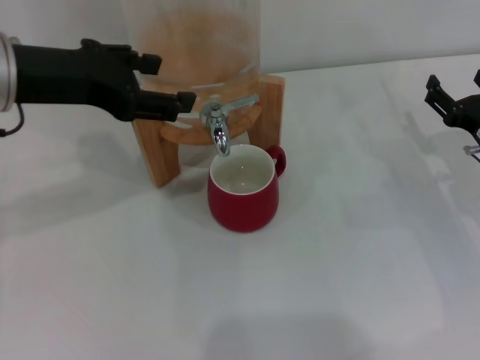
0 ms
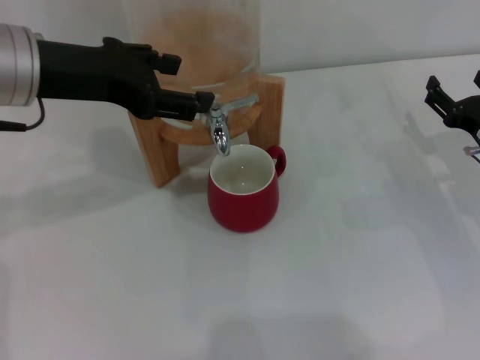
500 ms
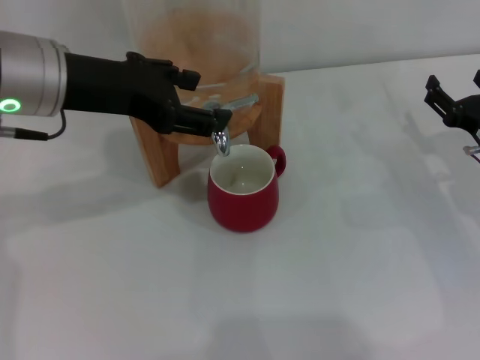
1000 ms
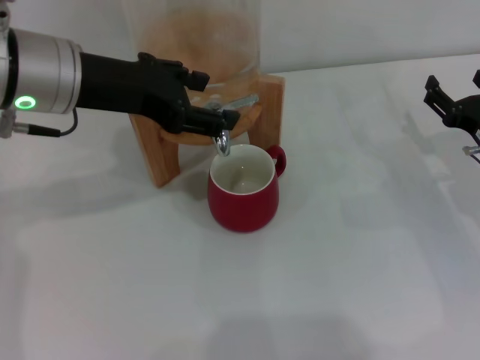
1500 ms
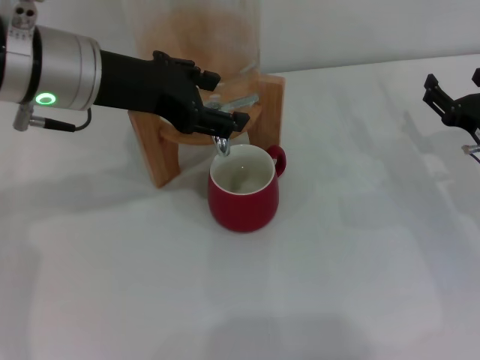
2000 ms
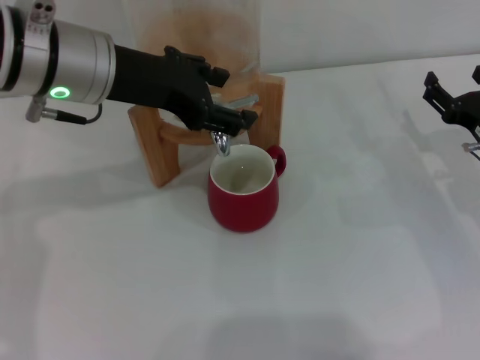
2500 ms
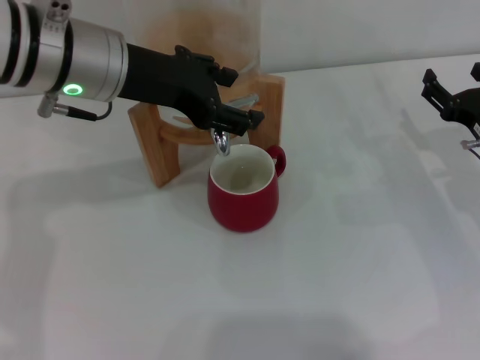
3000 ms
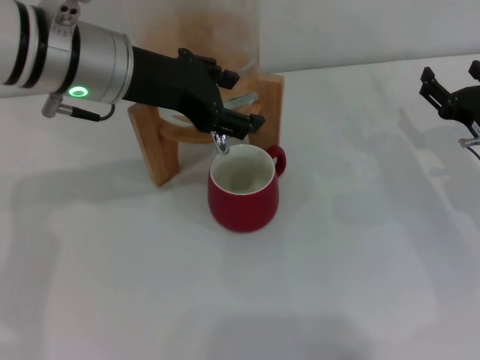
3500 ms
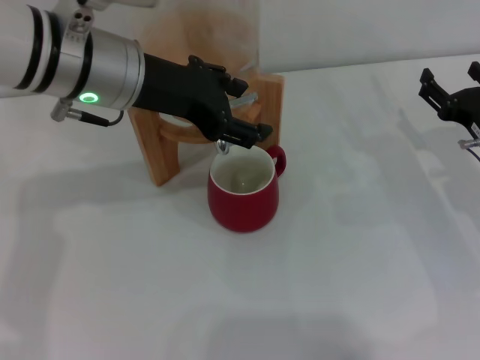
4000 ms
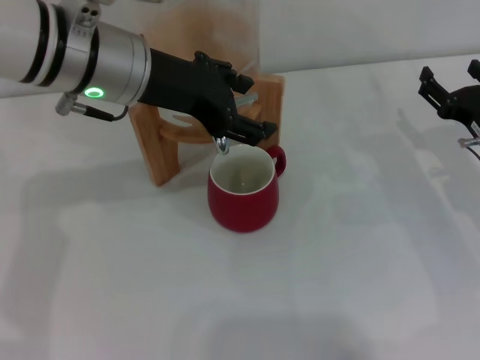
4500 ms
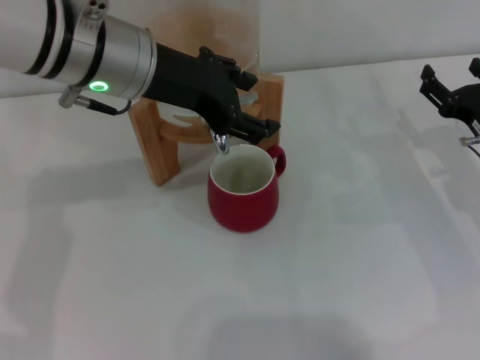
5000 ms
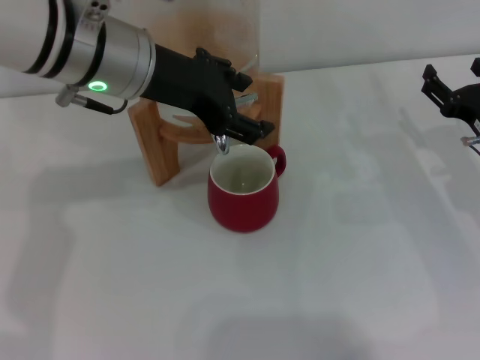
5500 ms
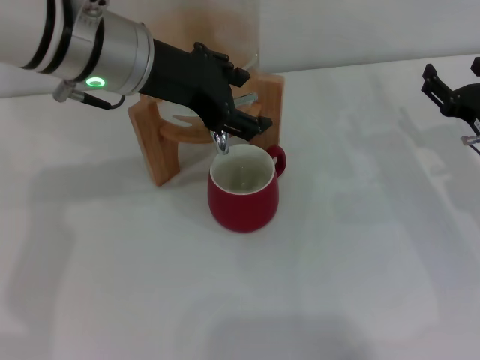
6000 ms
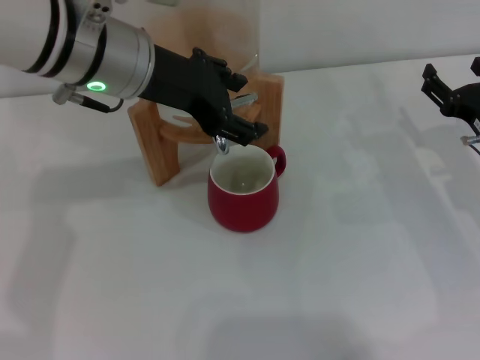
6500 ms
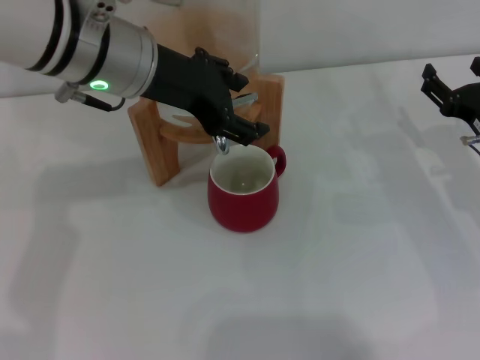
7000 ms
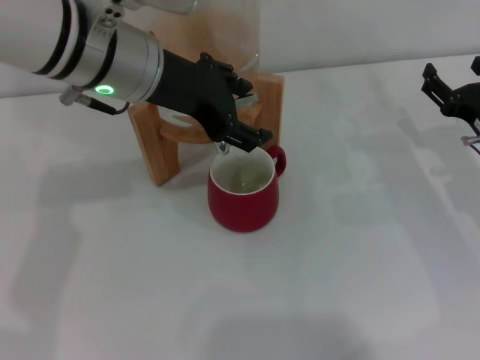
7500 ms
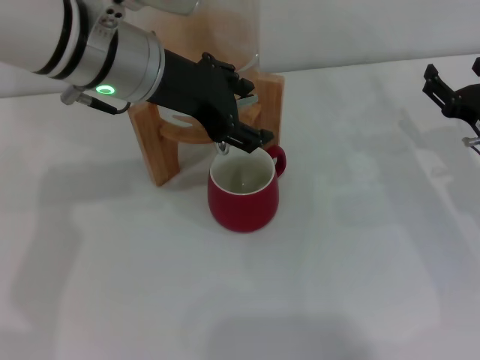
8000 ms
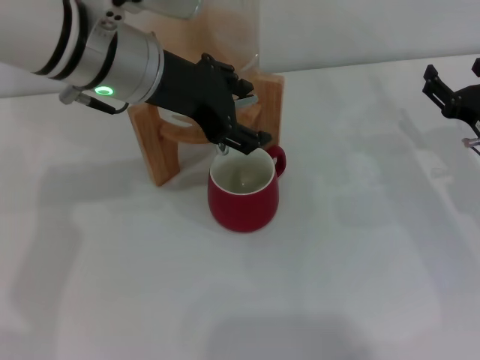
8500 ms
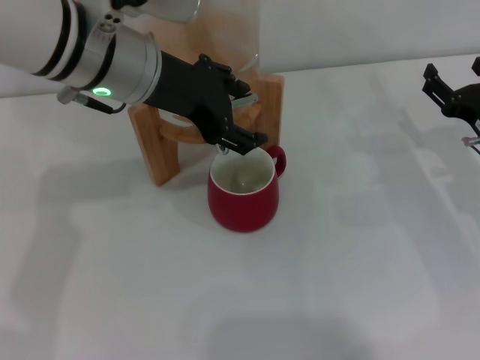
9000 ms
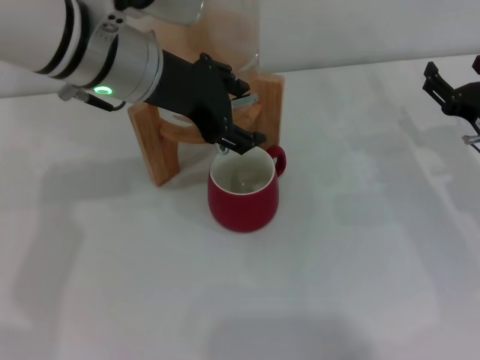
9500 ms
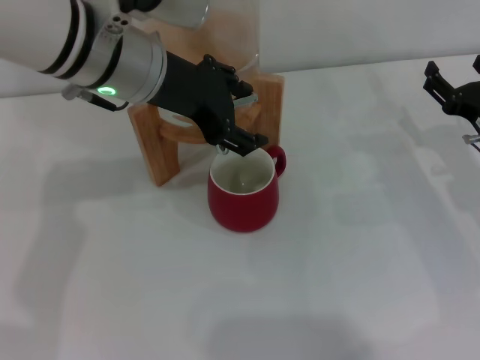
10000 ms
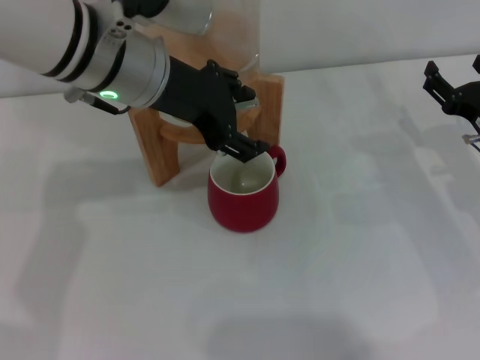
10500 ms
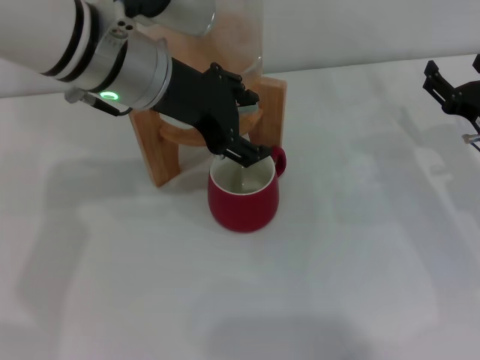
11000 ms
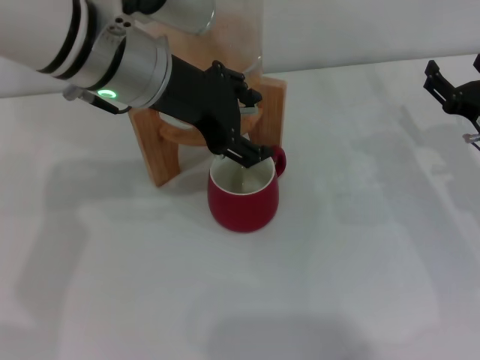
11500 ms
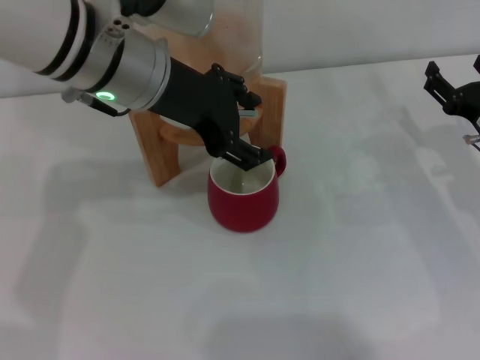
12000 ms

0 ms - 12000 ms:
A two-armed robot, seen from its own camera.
Task of the whole recording: the right gripper pick up the red cup and place it horizontally under the faucet, the left gripper turn on the faucet to fill the cup, and then turn off the faucet.
0 ms - 2000 ms: The left gripper moves to the right, approximately 5 cm.
2000 ms - 6000 ms: The grippers stay close to where they were, moving slightly.
6000 ms - 8000 ms: The two grippers keep their place.
8000 ms - 10000 ms: The grippers stay close to where they were, moving slightly.
10000 ms - 12000 ms: Both grippers stay put.

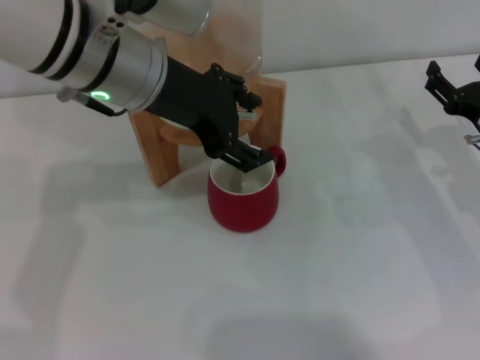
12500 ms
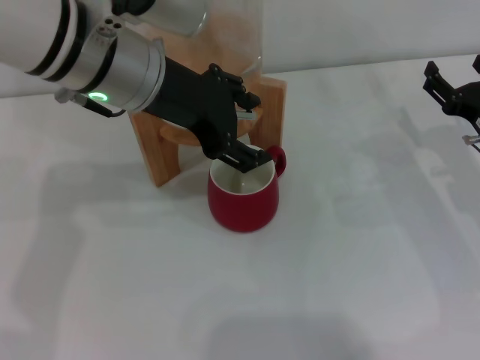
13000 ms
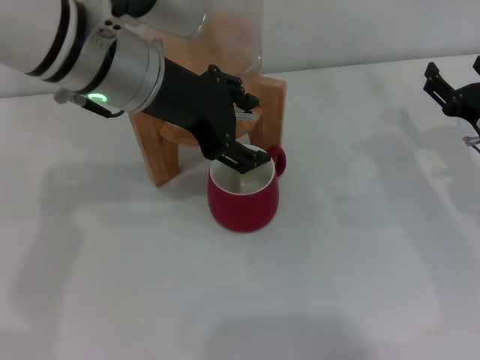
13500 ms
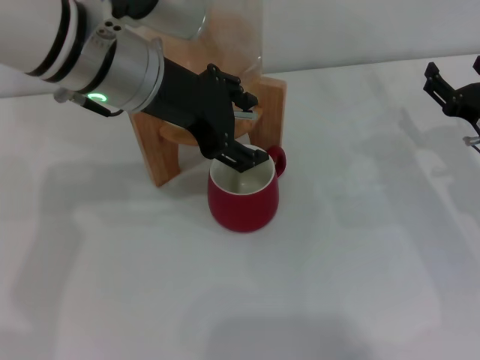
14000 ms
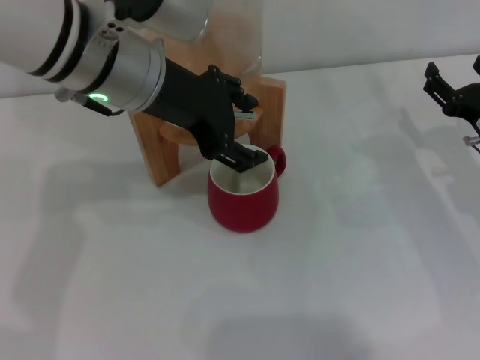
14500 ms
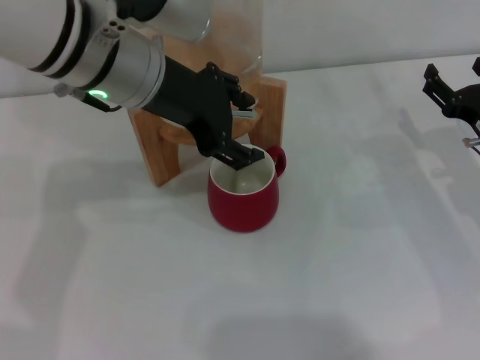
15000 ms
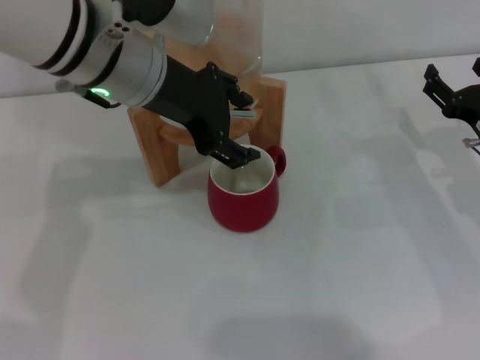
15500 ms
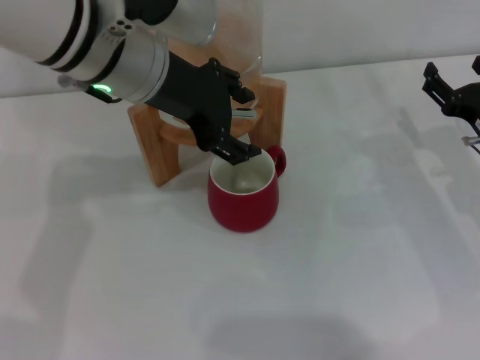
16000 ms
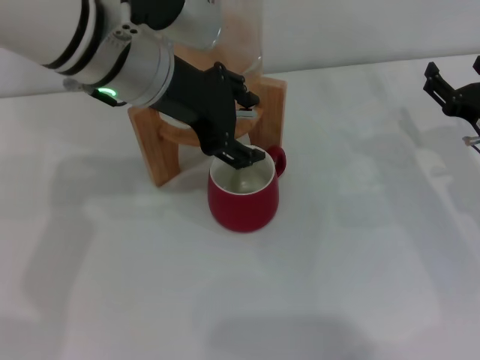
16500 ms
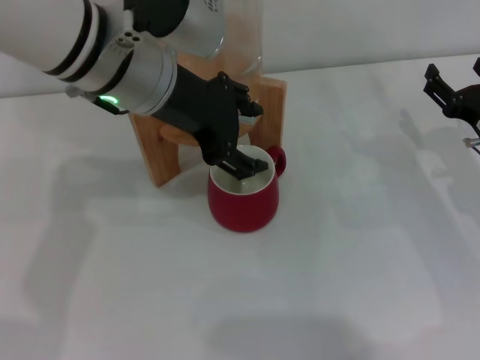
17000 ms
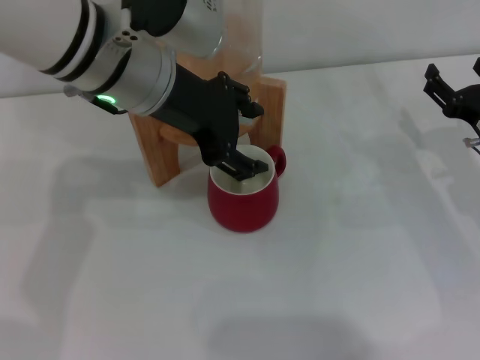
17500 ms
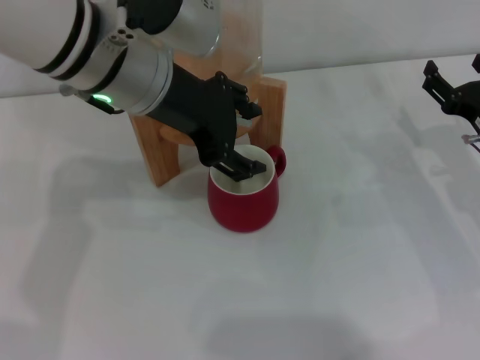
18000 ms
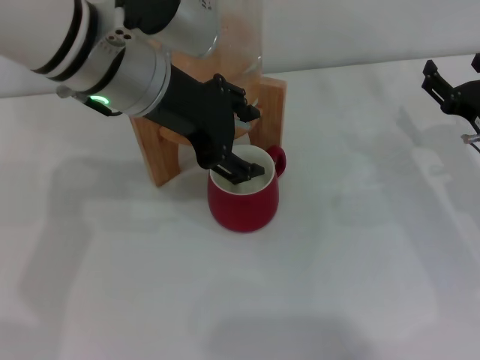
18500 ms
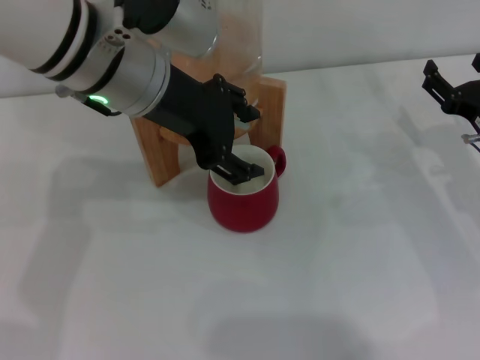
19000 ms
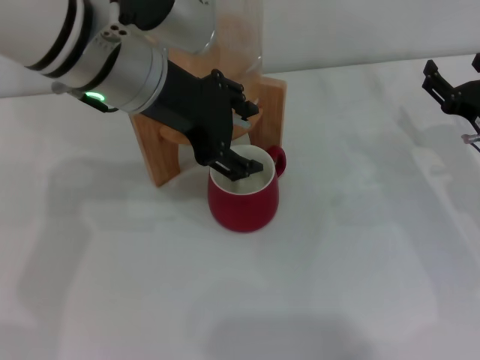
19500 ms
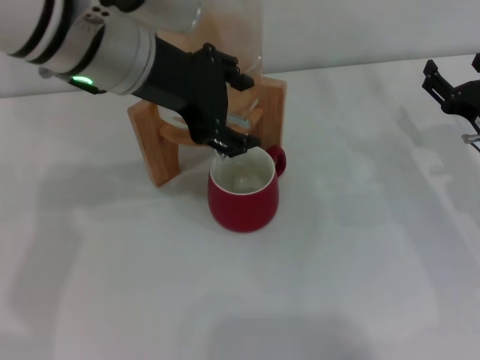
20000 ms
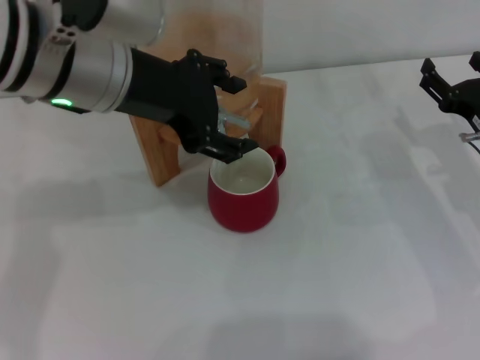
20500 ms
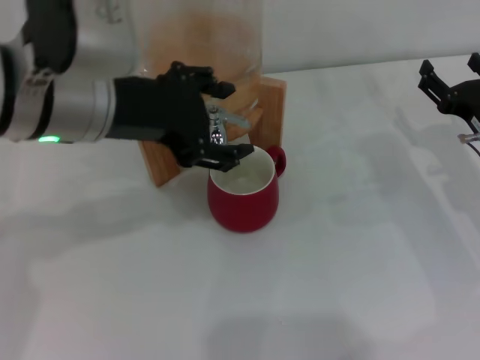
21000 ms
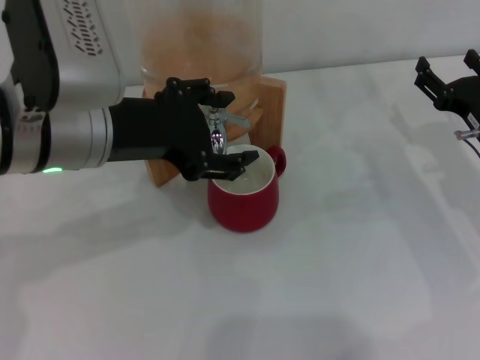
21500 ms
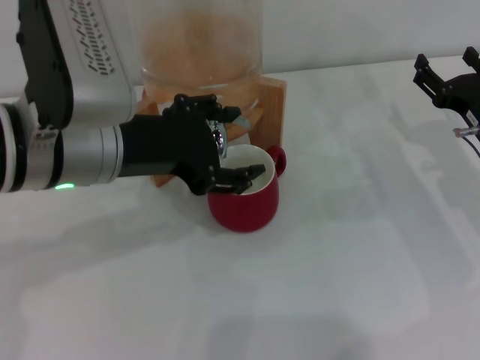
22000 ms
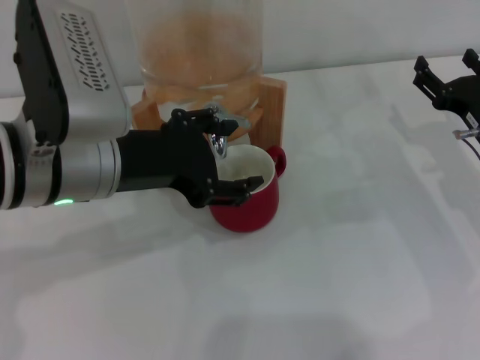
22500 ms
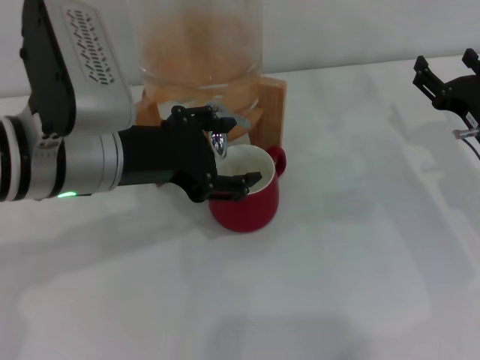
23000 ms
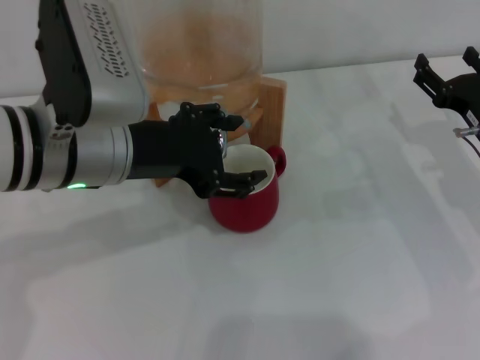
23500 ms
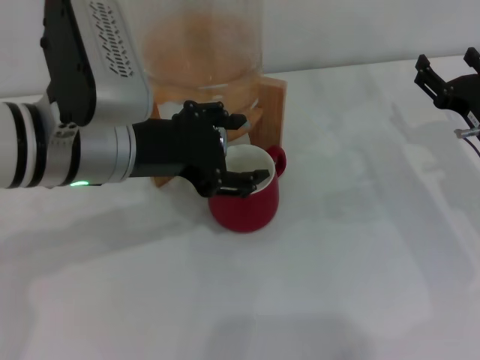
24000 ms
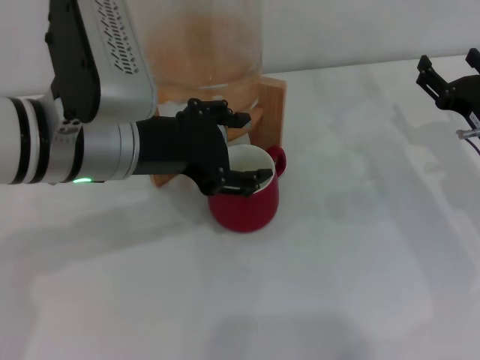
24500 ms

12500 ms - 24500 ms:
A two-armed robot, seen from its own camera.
Task of the whole recording: the right gripper pick up the red cup and place it horizontally under the faucet, the left gripper turn on the faucet to fill the cup, and then turn off the faucet.
Step, 12500 ms - 19500 ms: Open the dispenser valve and fill the cup with water with the left gripper.
12500 ms - 14500 ms: Both grippers stay put.
14500 ms - 16500 ms: There are only small adjustments of the grippers.
16500 ms - 18500 ms: Neither gripper changes place.
18500 ms - 20500 ms: The grippers move only a little.
20500 ms - 22500 ms: The left gripper shifts about 5 cm downward.
22500 ms - 24500 ms: There are only small adjustments of the grippers.

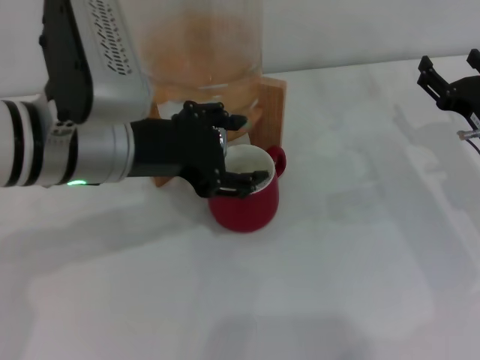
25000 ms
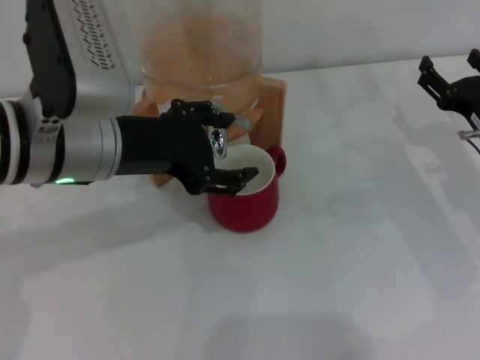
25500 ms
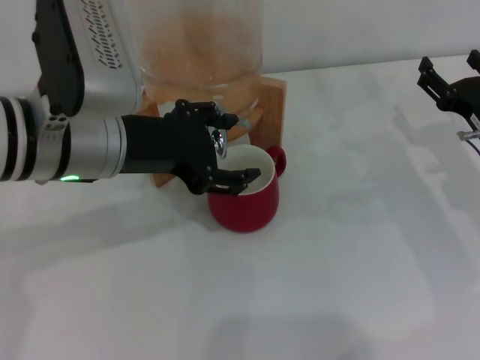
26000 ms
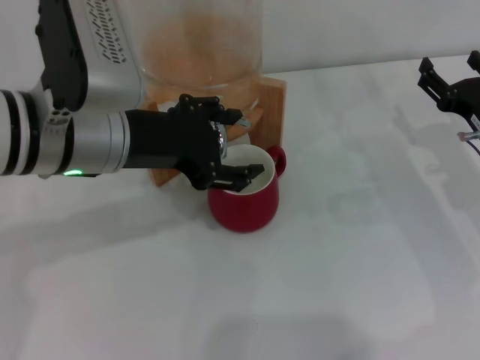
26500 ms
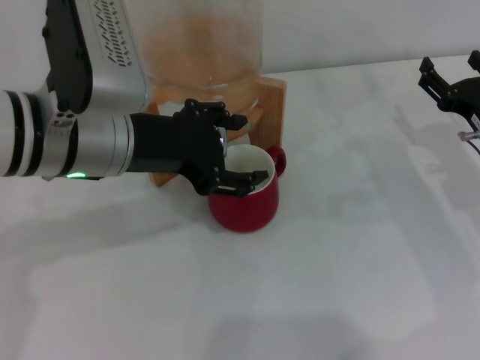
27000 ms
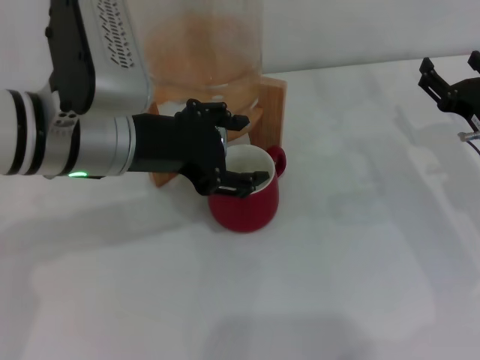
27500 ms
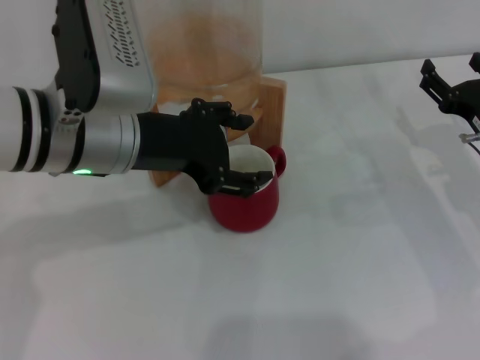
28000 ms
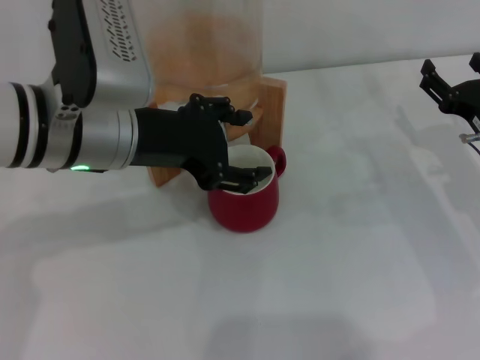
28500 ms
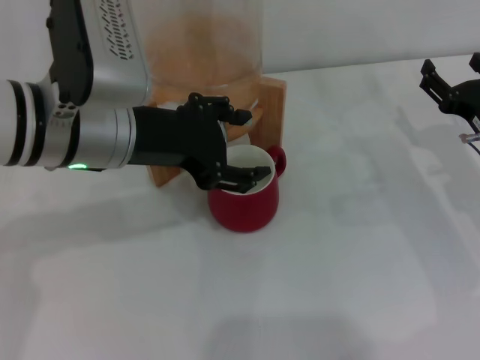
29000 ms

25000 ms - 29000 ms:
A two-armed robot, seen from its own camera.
Task of the whole recording: the right gripper pick up the red cup and place it horizontally under the faucet, the left gripper turn on the faucet to fill the cup, and then turn off the faucet.
25000 ms - 27000 ms: Neither gripper changes place.
27000 ms - 29000 ms: Both grippers stay about where they are.
